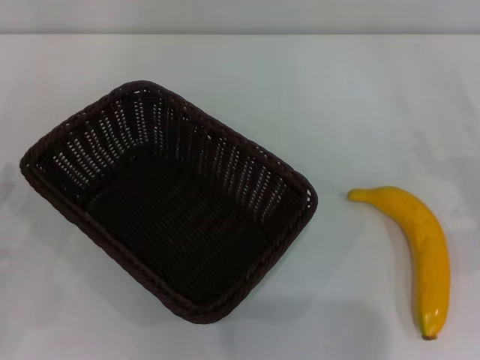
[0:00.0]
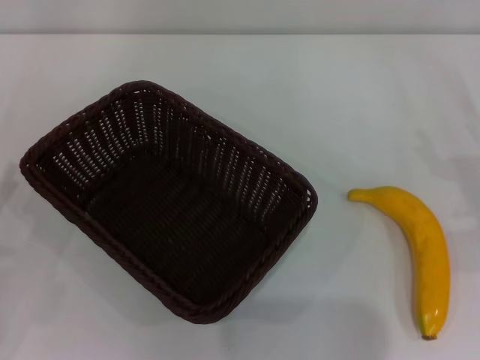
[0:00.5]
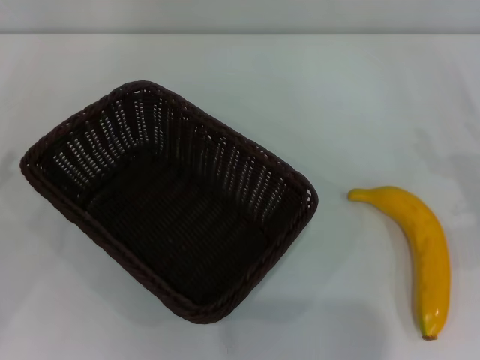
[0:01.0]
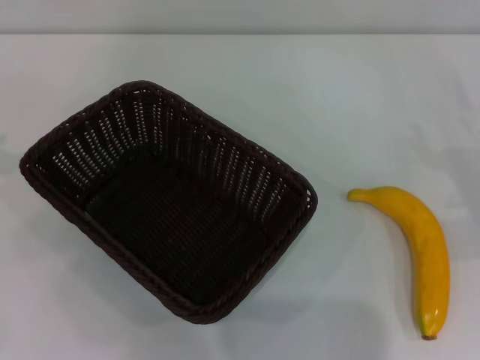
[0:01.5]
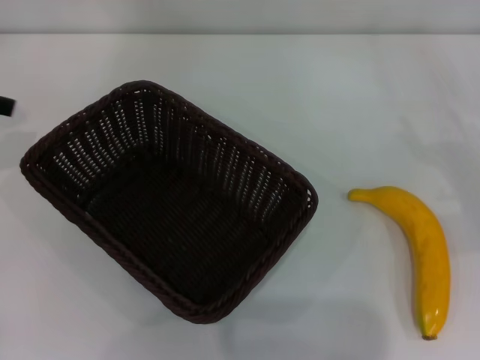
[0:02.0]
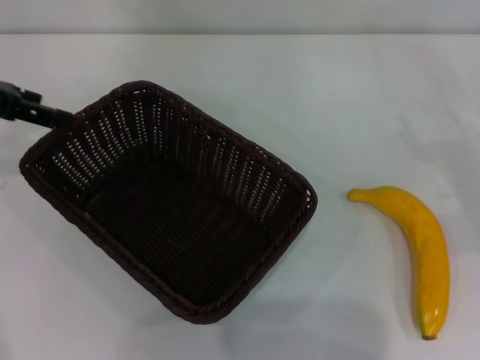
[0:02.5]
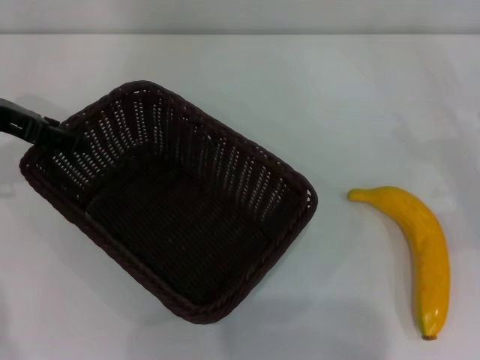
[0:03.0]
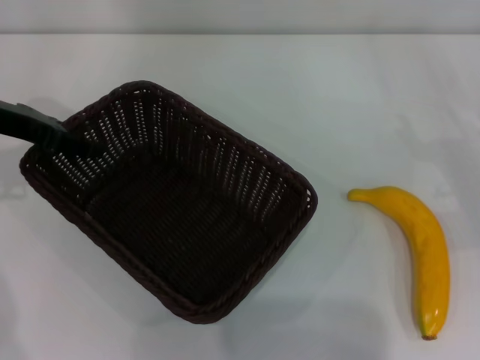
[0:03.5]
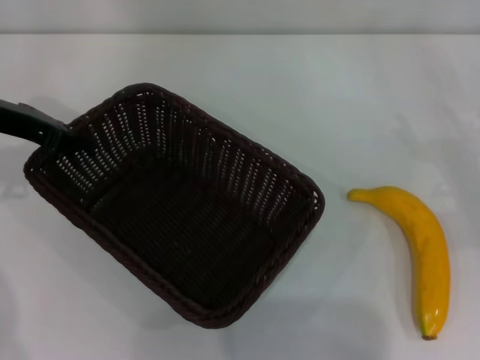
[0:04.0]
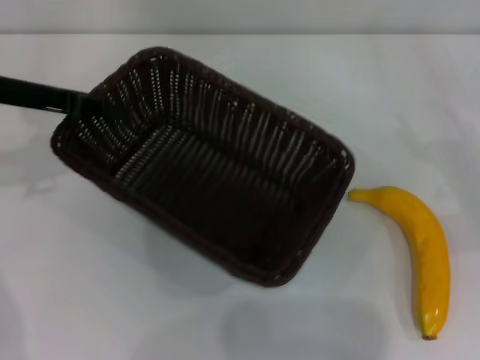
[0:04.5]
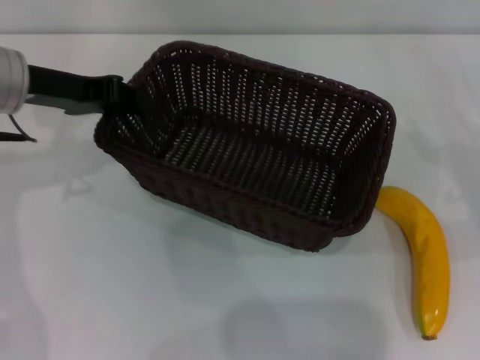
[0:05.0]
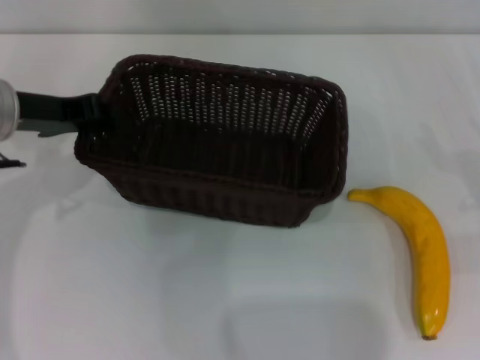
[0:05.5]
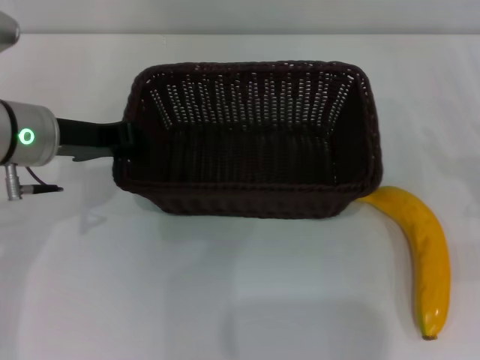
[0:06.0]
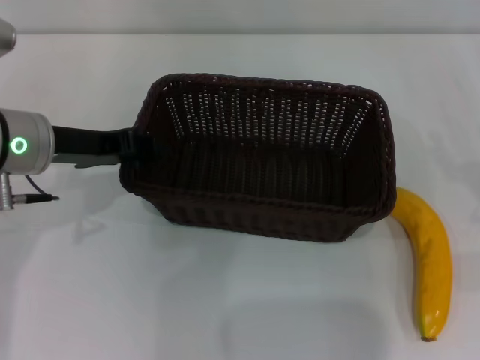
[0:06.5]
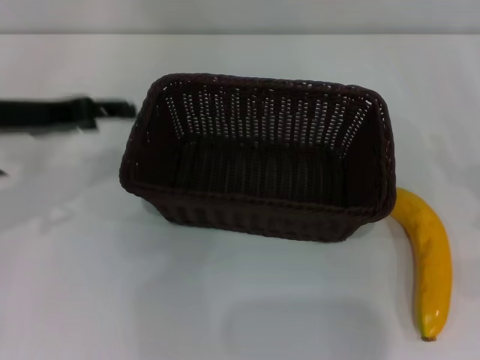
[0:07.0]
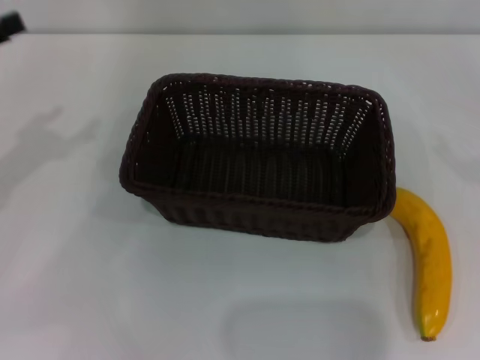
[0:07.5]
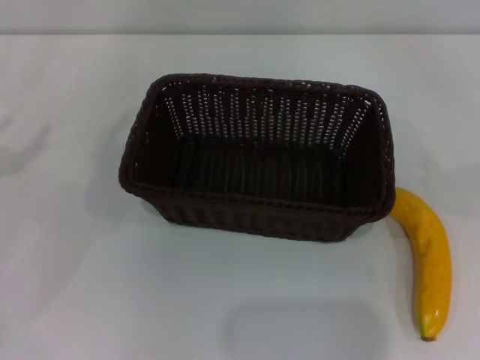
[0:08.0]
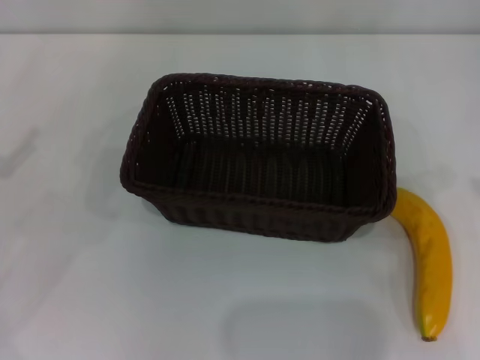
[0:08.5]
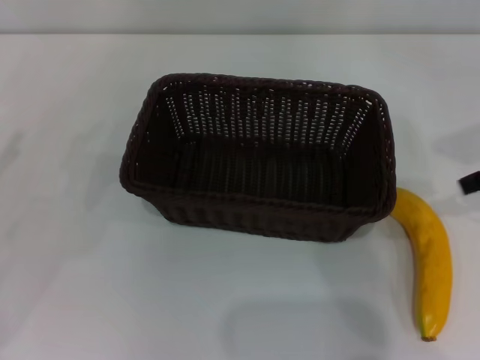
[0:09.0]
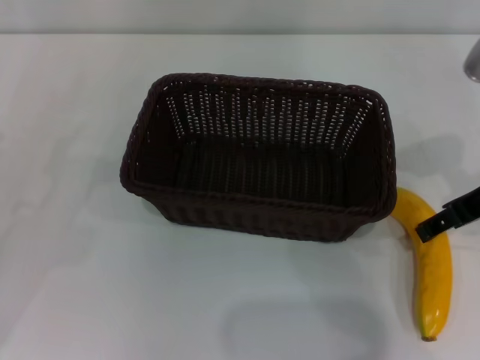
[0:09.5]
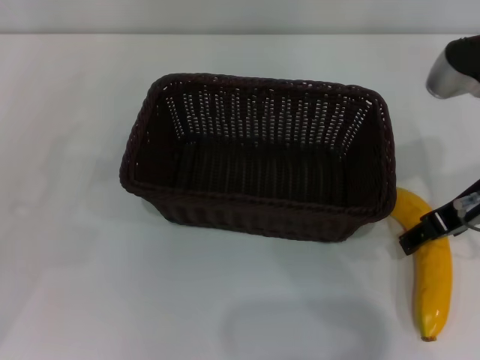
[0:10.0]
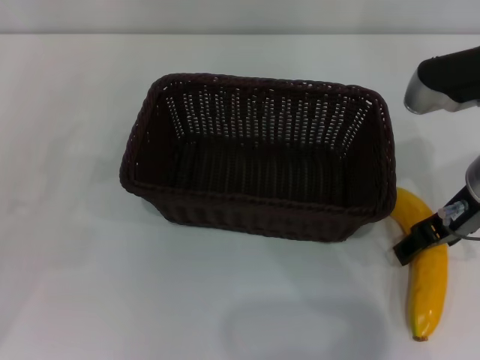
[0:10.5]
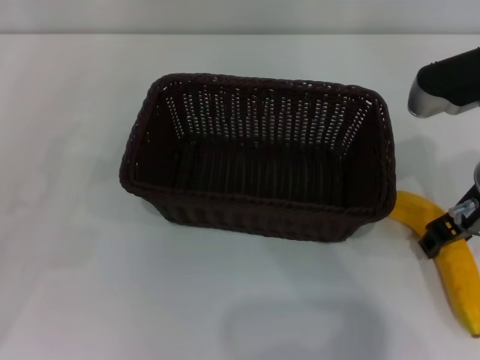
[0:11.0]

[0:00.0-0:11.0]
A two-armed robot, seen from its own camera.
Step, 0:00.0 to 0:04.0: Pick up the dark basket with the left gripper.
Step, 0:04.5 to 0:06.5: Place the dark basket in the center of view with the left gripper.
0:02.0 to 0:03.5: The left gripper is displaced downward and to the right by about 10 cm.
0:03.5 to 0:05.5: The left gripper shifts by approximately 5 cm, and closes up.
0:05.5 to 0:07.5: The right gripper shifts roughly 10 cm to the right and upward, while the left gripper is displaced to the left and backward by roughly 10 cm, and opens.
0:09.0 to 0:11.0: The right gripper is displaced to the left and downward by some 10 cm.

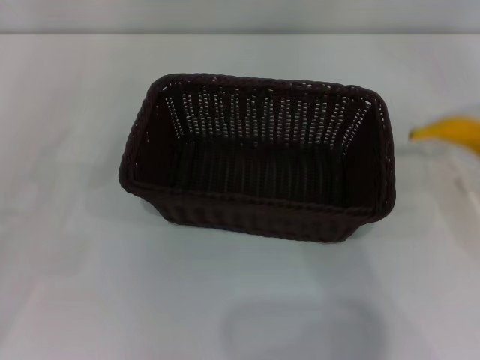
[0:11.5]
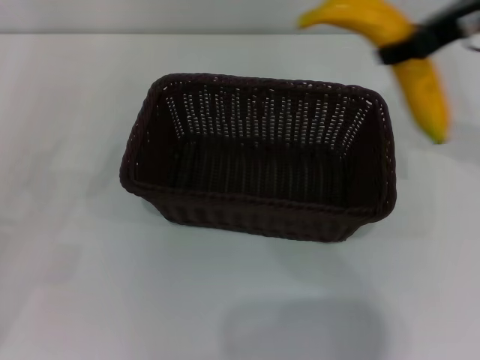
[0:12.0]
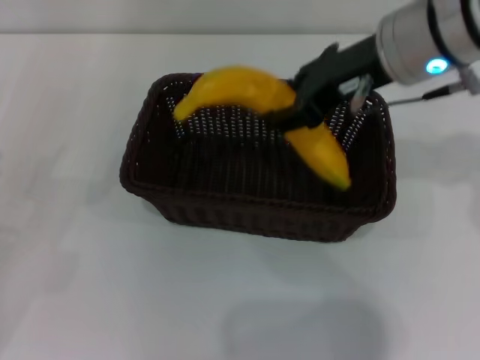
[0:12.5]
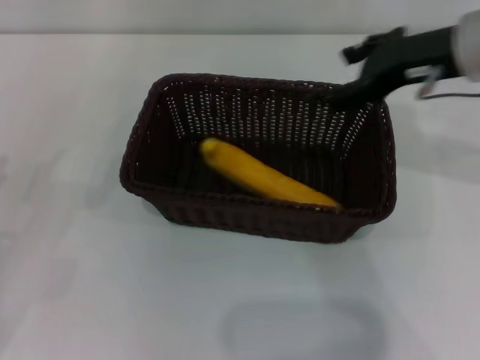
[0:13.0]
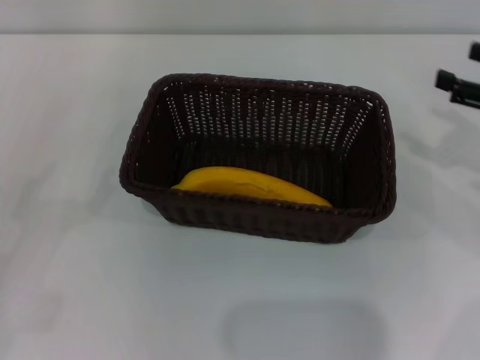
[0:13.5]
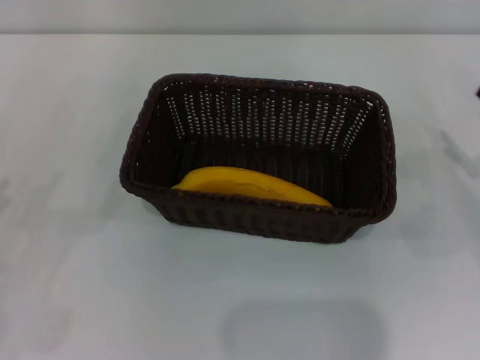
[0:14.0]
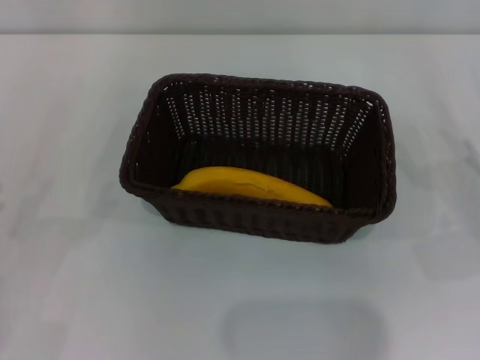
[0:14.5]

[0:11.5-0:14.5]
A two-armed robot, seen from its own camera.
Step, 0:11.5 to 0:13.0: Place the banana into the dark basket with the right gripper.
0:11.5 to 0:13.0: The right gripper travels to the left by about 10 cm, and opens its fingers; the left gripper ends up about 5 cm from where it was.
0:13.0 to 0:14.5: The right gripper shifts about 25 cm downward, to the right and backward. Meanwhile the left gripper shifts by some 5 cm.

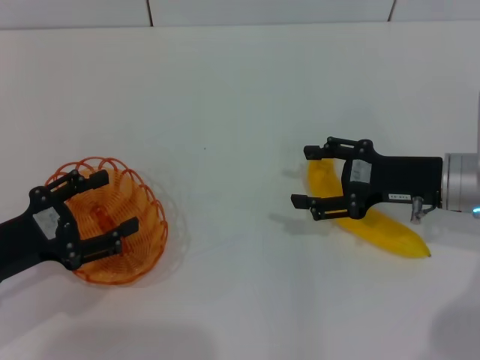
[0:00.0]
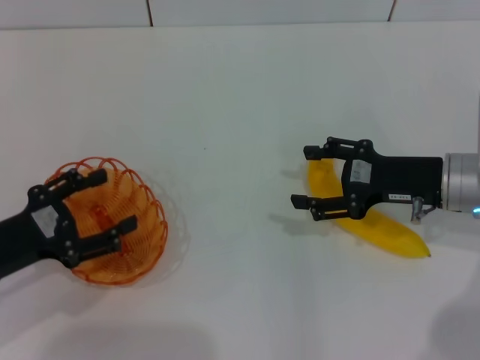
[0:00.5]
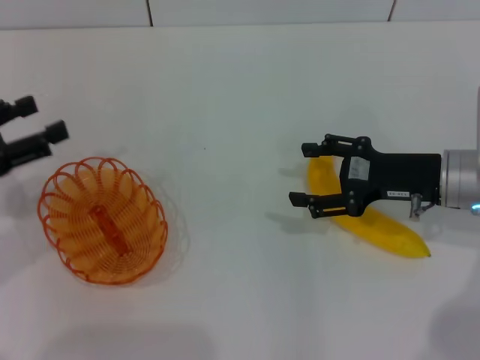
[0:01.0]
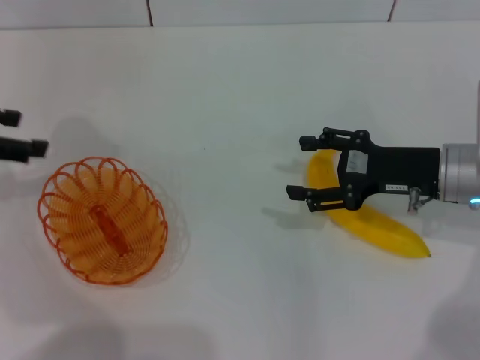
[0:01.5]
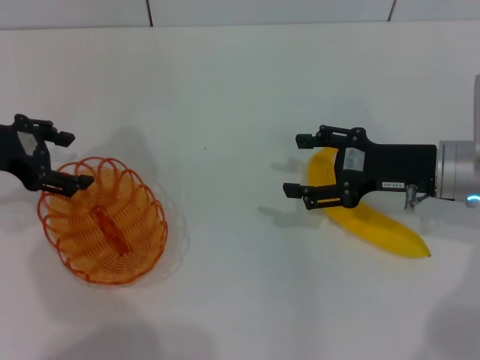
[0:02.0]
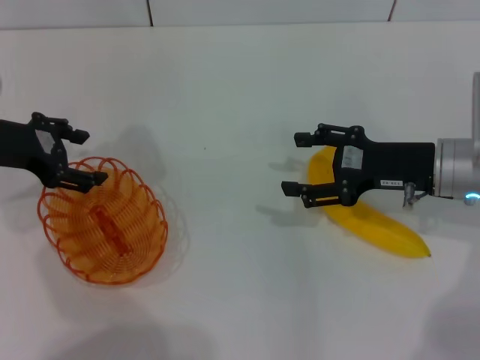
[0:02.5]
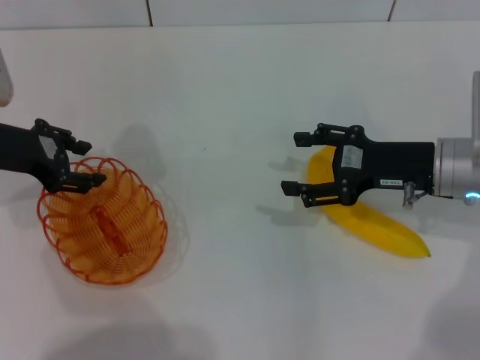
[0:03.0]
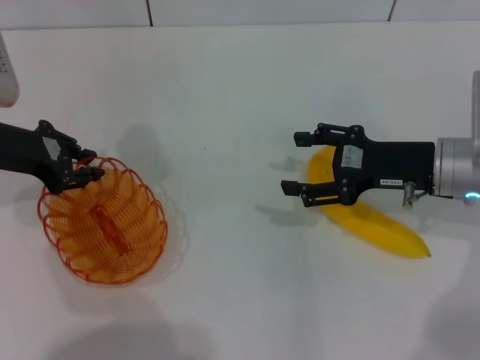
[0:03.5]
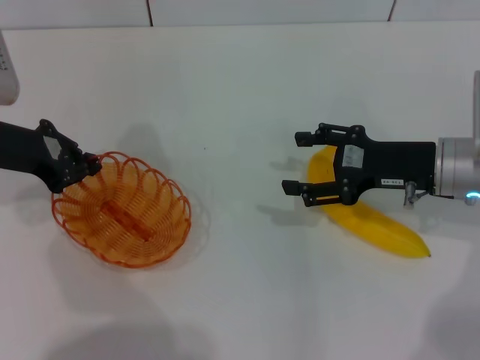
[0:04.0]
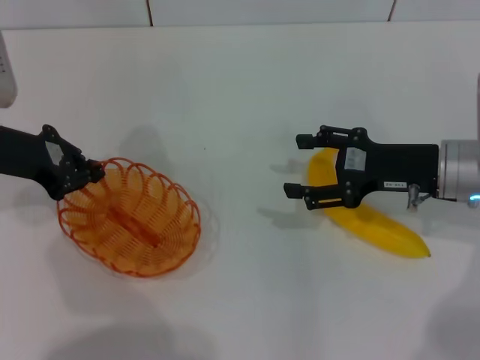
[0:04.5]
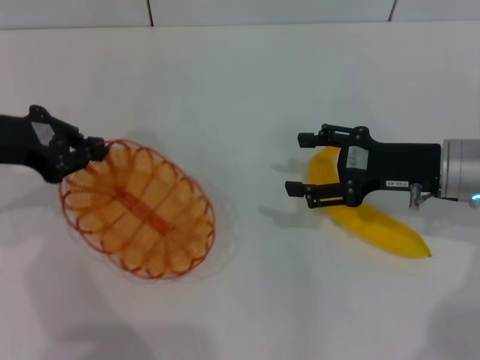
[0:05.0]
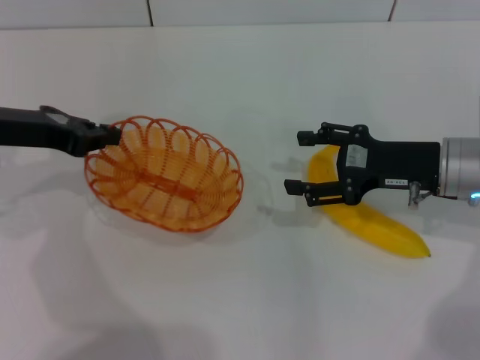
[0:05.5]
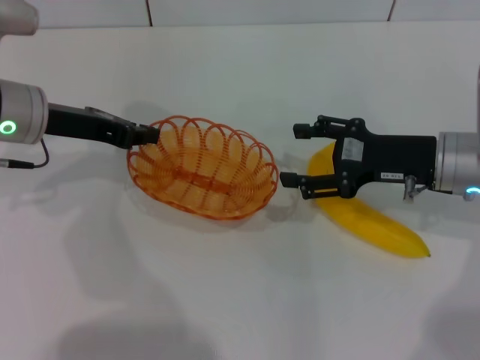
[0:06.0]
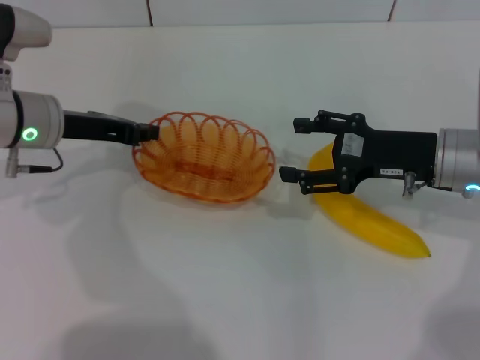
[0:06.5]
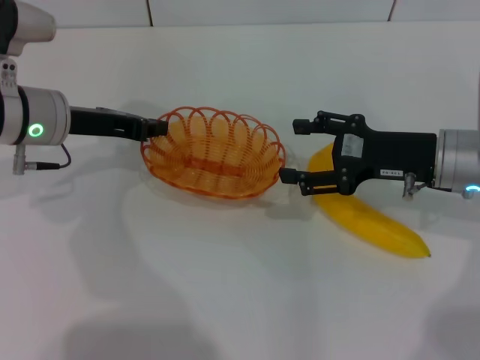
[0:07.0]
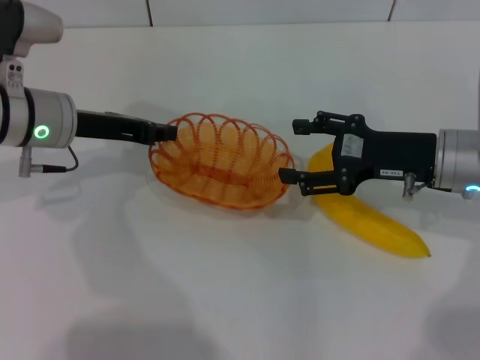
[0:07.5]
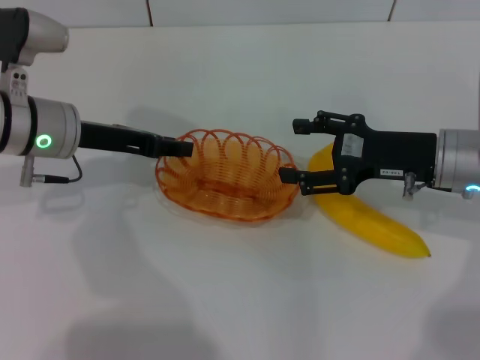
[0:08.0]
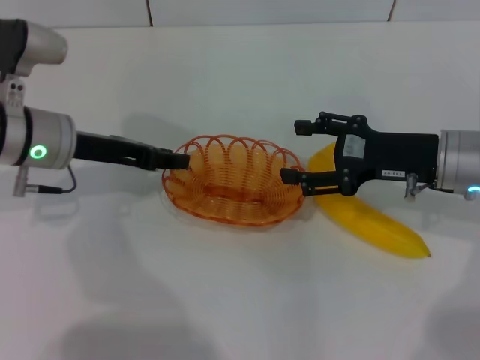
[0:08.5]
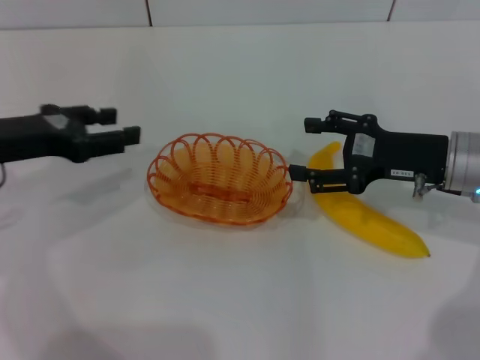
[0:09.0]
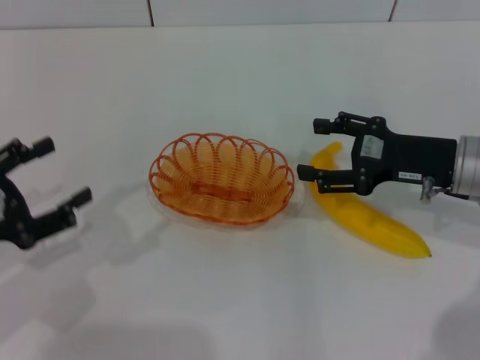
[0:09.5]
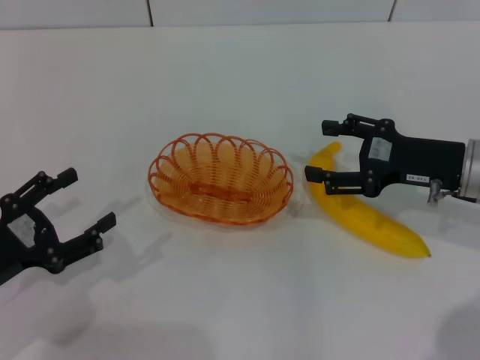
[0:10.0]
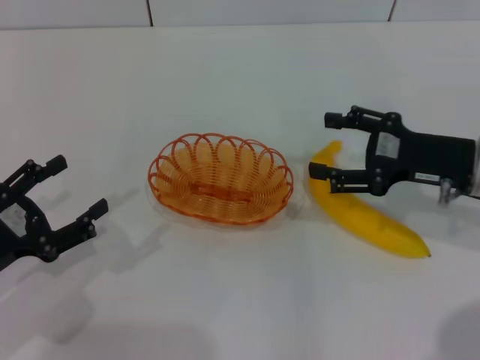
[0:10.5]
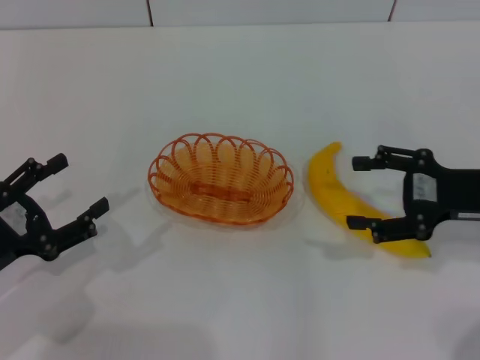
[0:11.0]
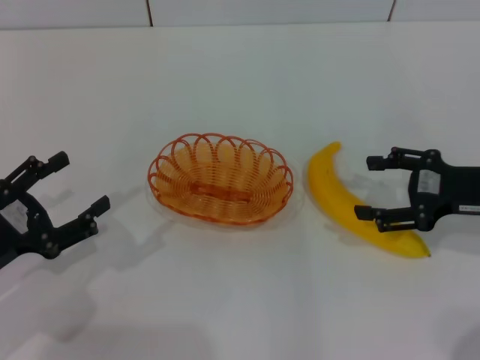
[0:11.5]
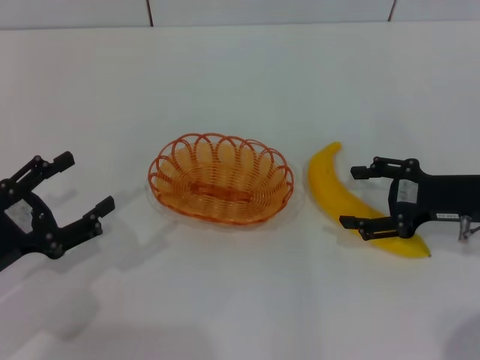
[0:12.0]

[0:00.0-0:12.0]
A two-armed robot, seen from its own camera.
Step, 0:00.0 to 0:04.0: Pick up the basket with the left gripper.
Step, 0:05.0 to 0:08.5: Place the basket in the center of view with the left gripper.
0:00.0 to 0:02.0: The left gripper travels forward and upward by roughly 15 cm.
0:02.0 to 0:04.0: The left gripper closes up.
0:06.0 to 0:08.0: The left gripper opens.
0:08.0 to 0:10.0: The left gripper moves backward, to the left and downward, about 20 cm, and opens up.
0:10.0 to 0:12.0: The grippers move only a little.
